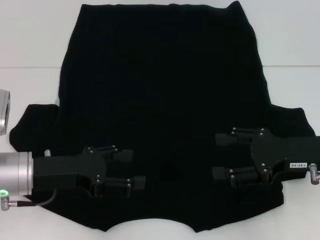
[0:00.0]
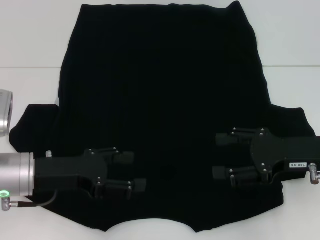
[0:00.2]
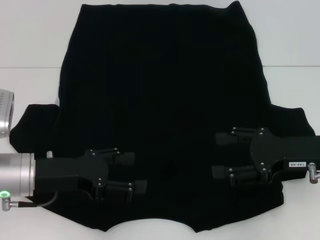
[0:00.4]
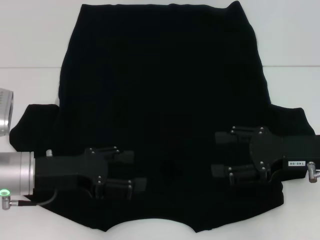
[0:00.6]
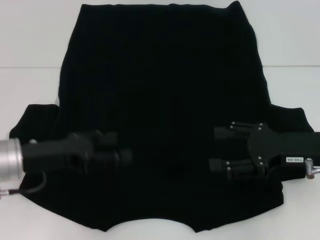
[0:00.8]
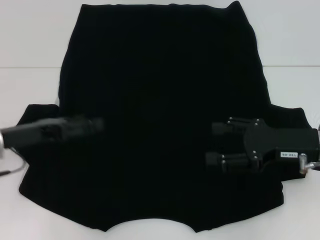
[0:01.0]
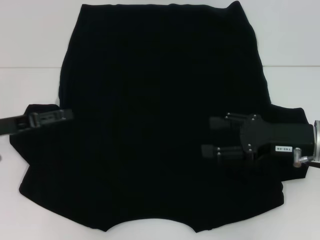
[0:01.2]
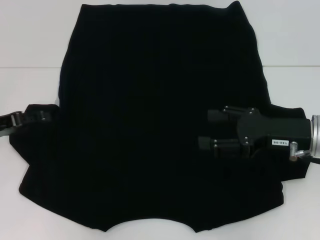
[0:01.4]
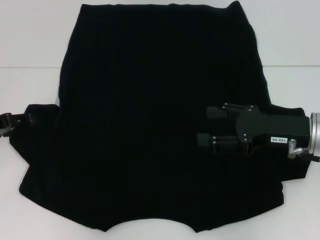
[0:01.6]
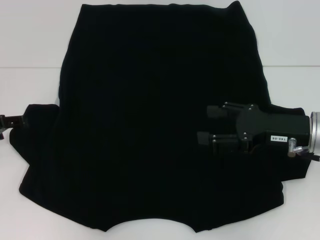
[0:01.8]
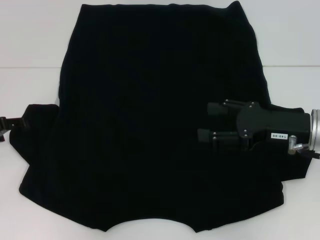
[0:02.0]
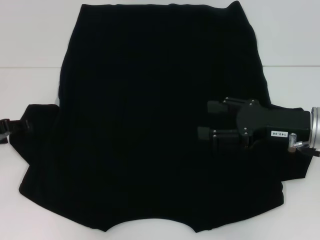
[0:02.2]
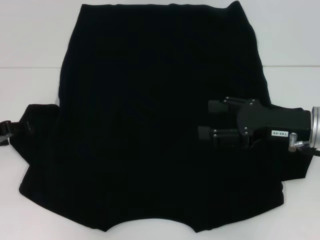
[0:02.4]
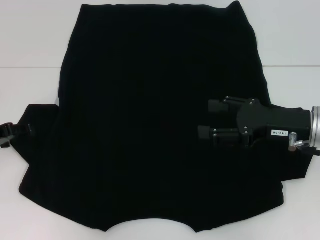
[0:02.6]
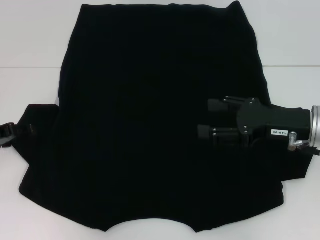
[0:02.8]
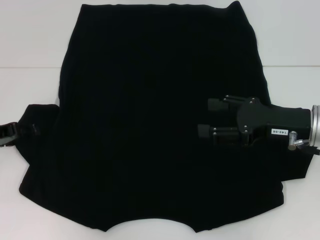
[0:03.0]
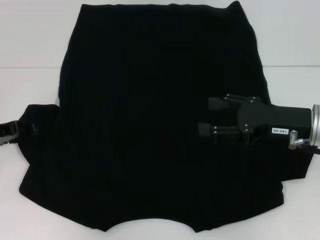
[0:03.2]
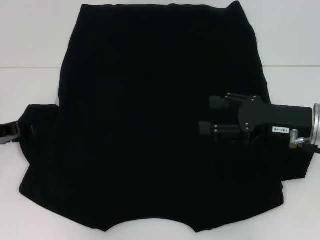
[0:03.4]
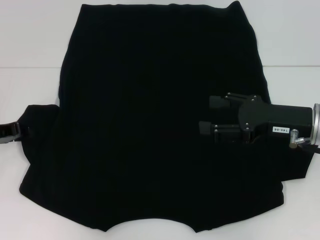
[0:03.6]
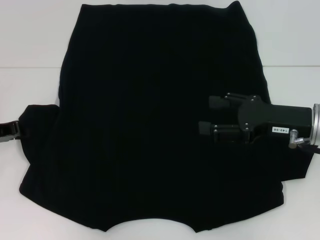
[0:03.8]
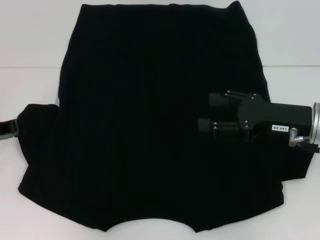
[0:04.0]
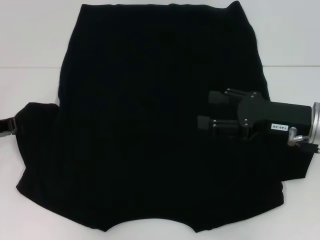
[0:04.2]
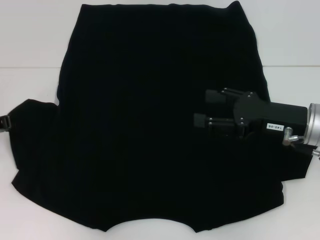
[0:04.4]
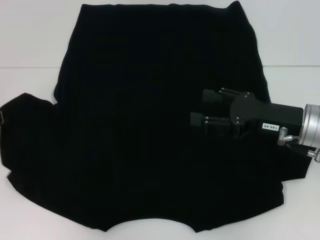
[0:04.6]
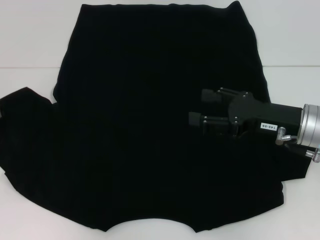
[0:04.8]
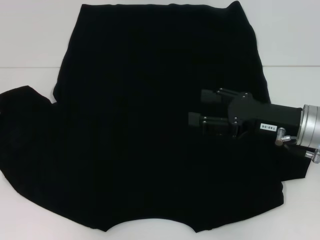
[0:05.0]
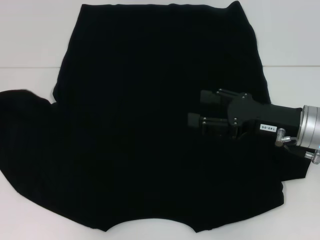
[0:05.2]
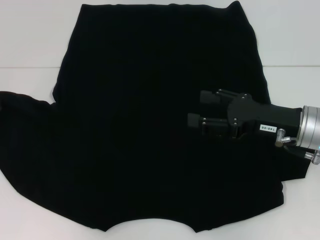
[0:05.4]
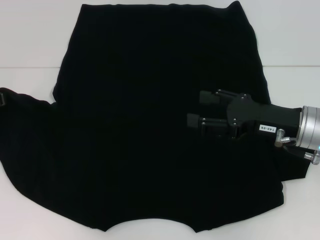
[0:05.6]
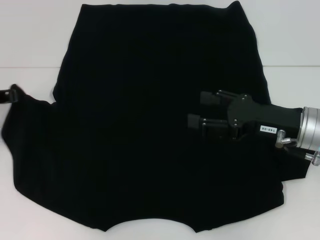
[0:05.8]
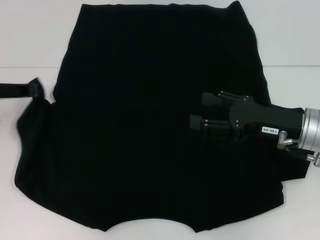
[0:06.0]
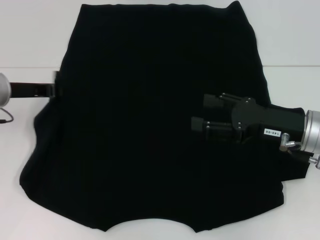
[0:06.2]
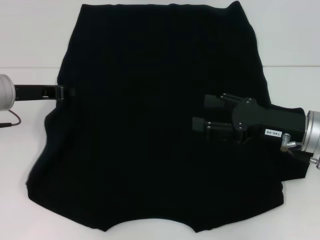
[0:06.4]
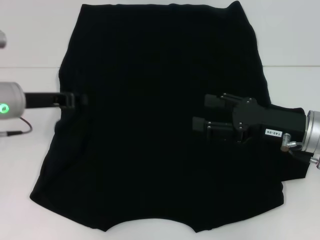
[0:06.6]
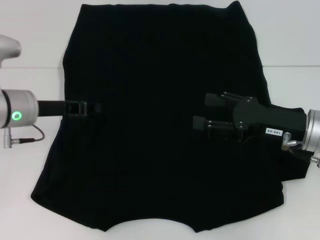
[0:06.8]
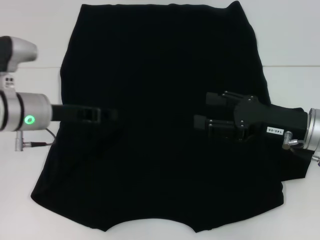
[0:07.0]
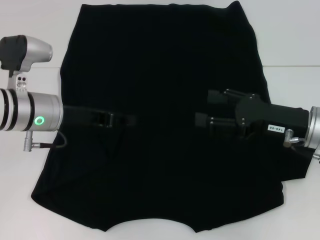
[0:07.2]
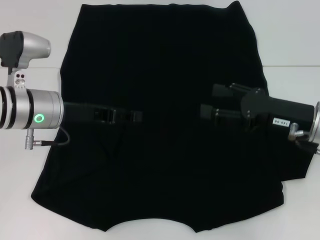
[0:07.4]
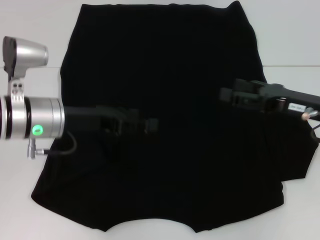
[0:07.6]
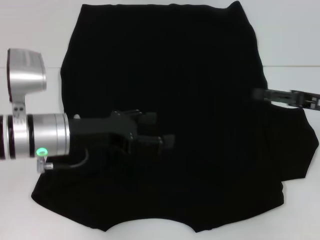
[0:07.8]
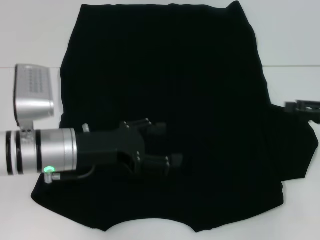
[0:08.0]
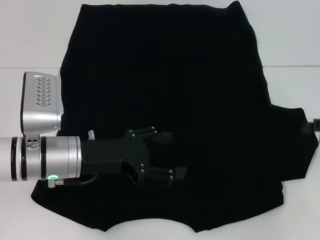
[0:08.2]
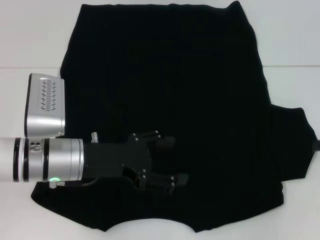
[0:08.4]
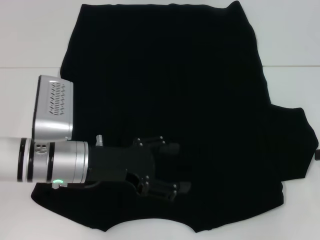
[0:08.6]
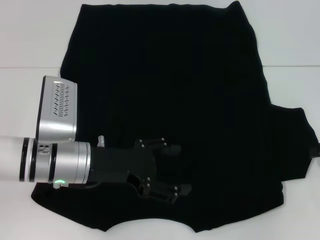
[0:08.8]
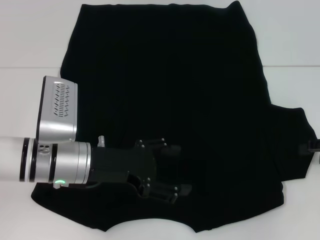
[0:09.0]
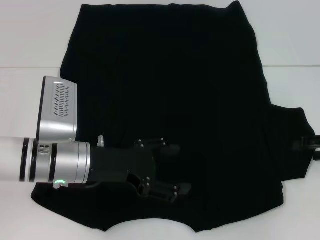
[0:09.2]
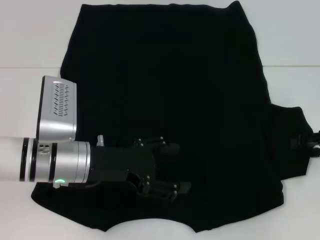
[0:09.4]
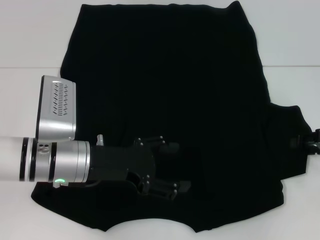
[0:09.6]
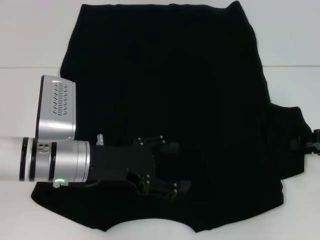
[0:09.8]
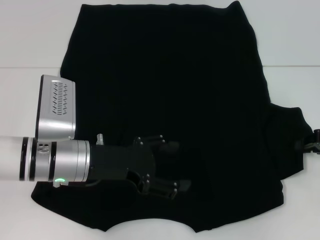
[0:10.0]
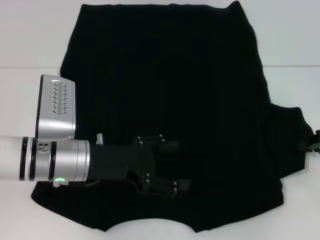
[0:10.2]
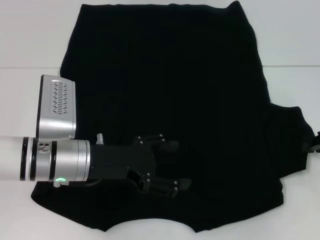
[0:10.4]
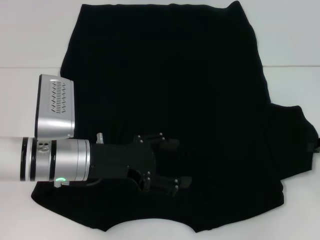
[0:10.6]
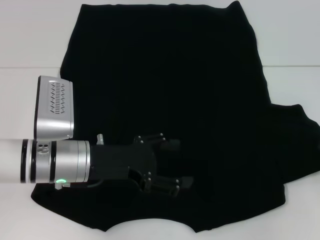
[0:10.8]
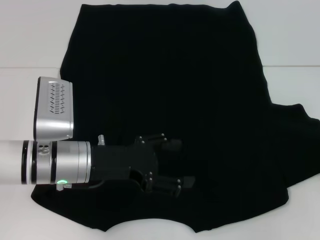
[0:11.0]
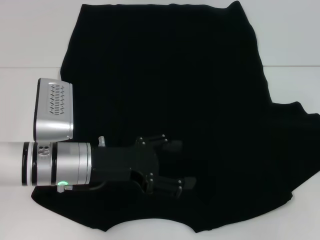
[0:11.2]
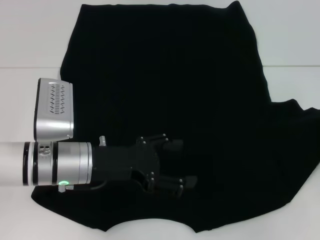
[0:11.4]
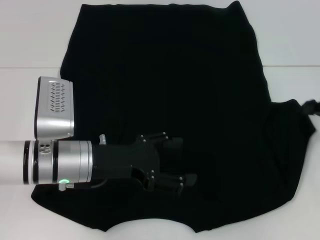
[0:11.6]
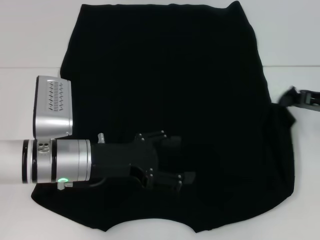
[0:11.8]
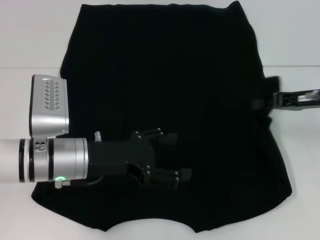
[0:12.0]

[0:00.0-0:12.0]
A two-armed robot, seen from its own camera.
Step, 0.0 to 7.4 s: Fold the bottom left sleeve with your left hand.
0.0 to 1.6 s: The left gripper shifts some 15 cm to the left and forward.
1.6 to 3.0 s: The grippers move only a little.
3.0 to 4.4 s: The left gripper closes.
4.4 to 6.0 s: The left gripper changes place by about 5 cm.
6.0 to 7.6 s: The left gripper is displaced to the right by approximately 10 cm, and opens its fingers.
7.6 to 9.0 s: The right gripper travels to the right by some 10 cm. Meanwhile the left gripper changes place by roughly 5 cm.
9.0 to 10.4 s: The right gripper closes.
10.4 to 12.0 s: The right gripper goes about 10 cm to the left.

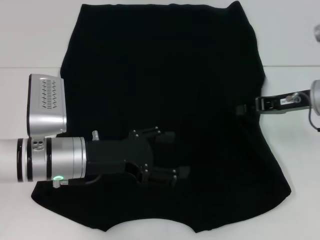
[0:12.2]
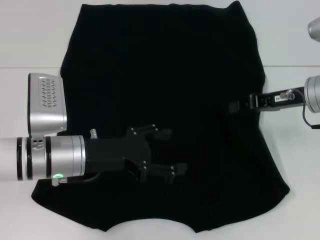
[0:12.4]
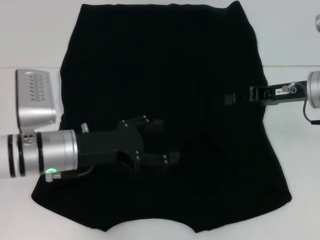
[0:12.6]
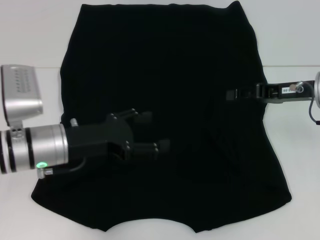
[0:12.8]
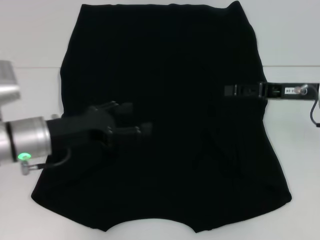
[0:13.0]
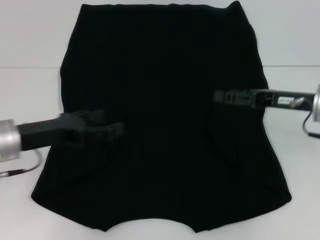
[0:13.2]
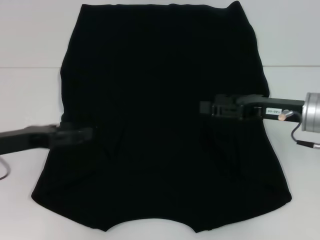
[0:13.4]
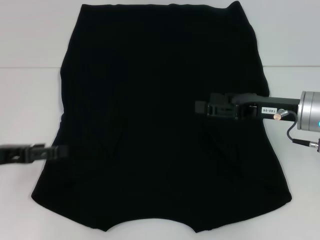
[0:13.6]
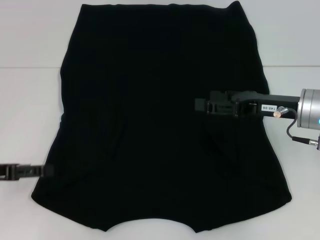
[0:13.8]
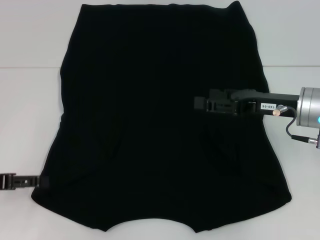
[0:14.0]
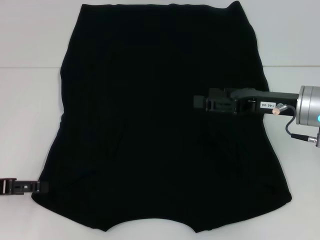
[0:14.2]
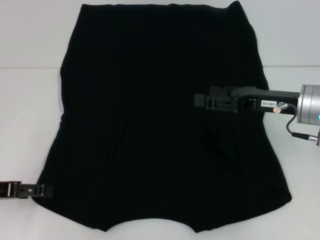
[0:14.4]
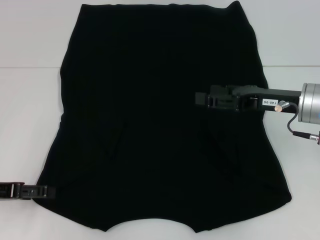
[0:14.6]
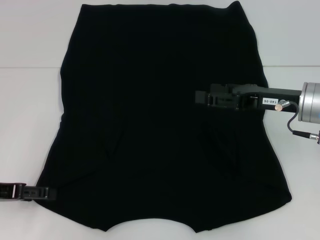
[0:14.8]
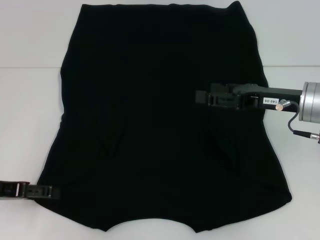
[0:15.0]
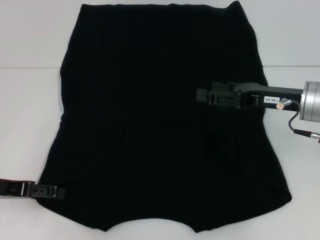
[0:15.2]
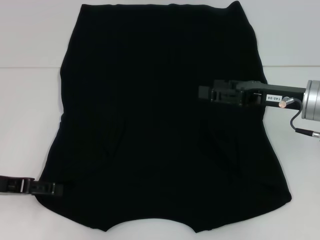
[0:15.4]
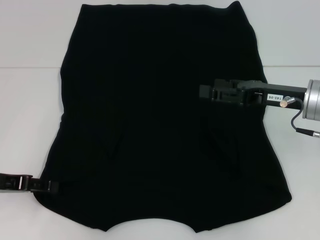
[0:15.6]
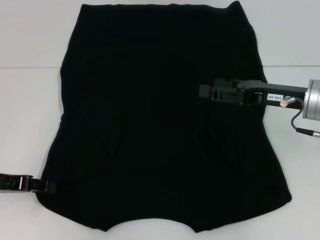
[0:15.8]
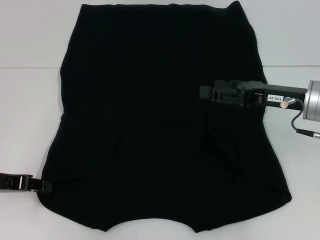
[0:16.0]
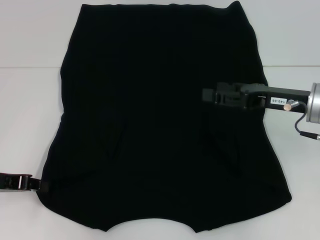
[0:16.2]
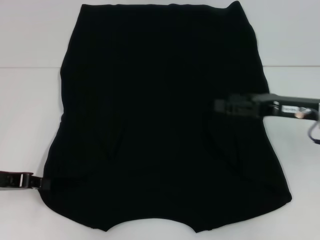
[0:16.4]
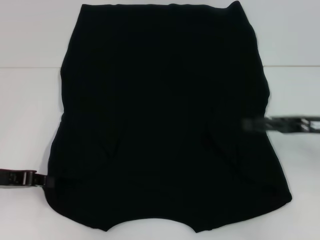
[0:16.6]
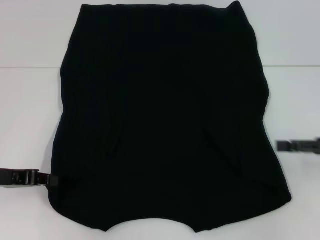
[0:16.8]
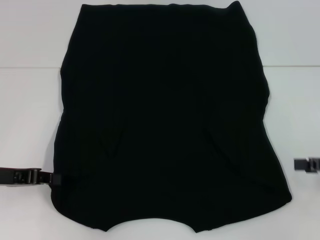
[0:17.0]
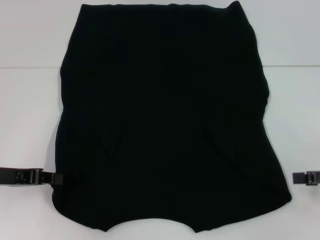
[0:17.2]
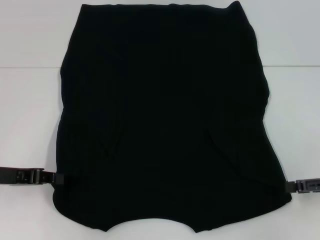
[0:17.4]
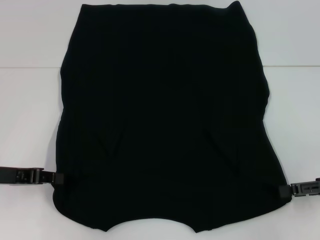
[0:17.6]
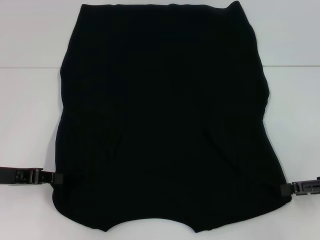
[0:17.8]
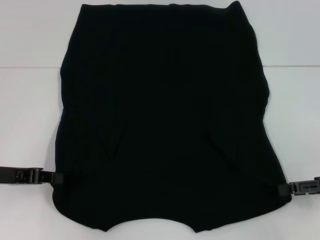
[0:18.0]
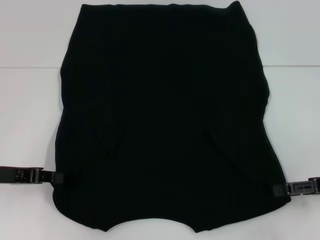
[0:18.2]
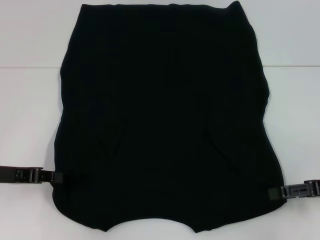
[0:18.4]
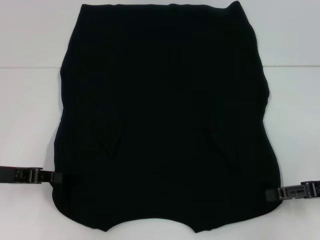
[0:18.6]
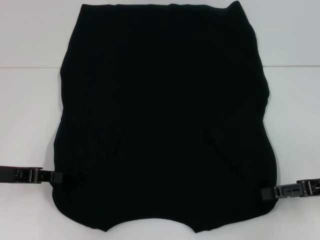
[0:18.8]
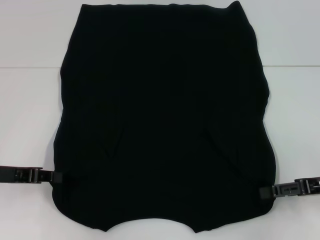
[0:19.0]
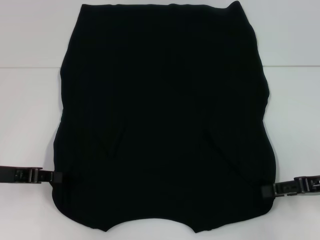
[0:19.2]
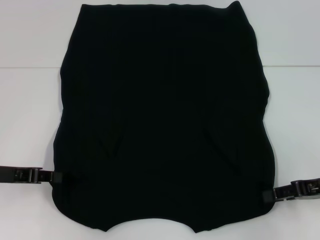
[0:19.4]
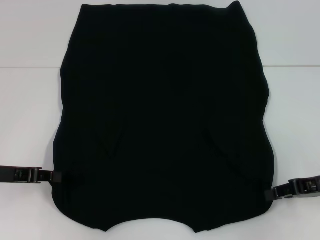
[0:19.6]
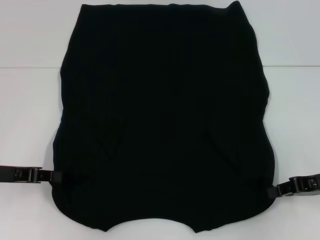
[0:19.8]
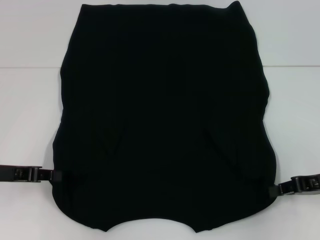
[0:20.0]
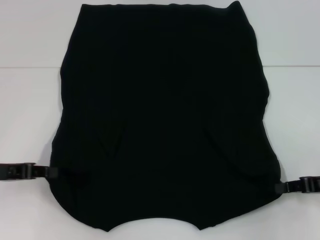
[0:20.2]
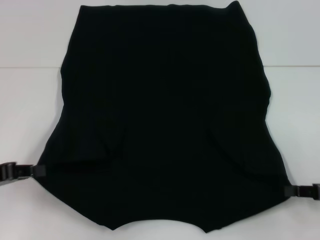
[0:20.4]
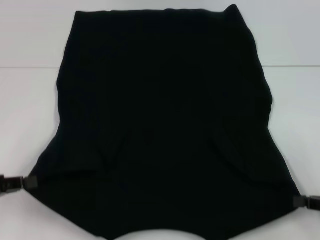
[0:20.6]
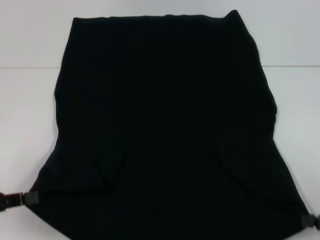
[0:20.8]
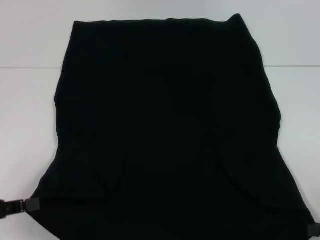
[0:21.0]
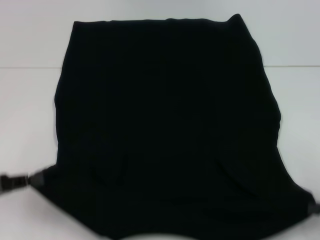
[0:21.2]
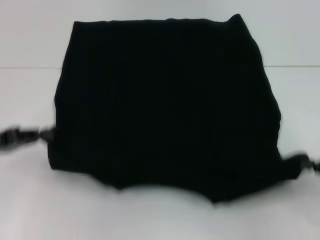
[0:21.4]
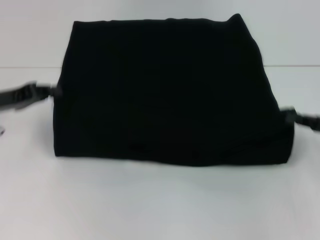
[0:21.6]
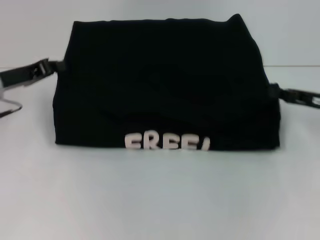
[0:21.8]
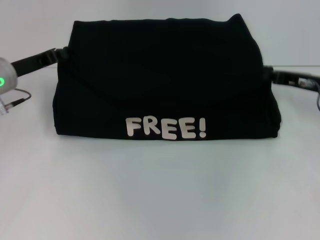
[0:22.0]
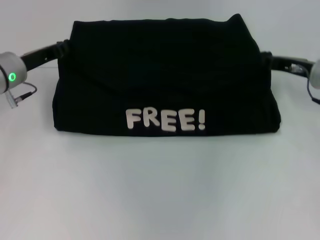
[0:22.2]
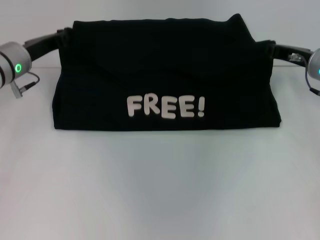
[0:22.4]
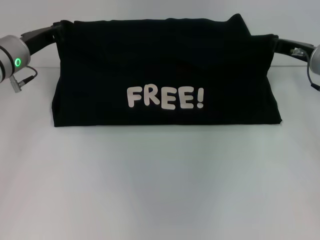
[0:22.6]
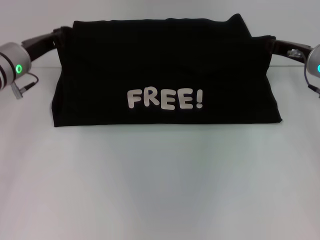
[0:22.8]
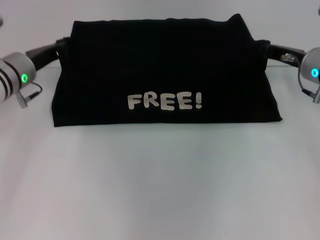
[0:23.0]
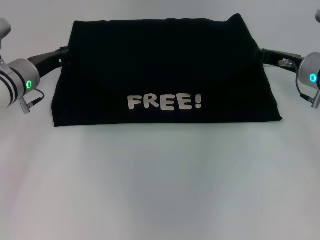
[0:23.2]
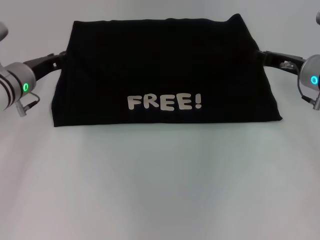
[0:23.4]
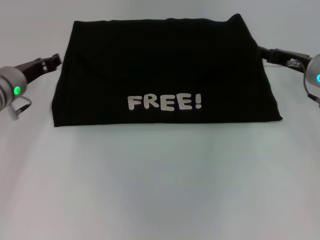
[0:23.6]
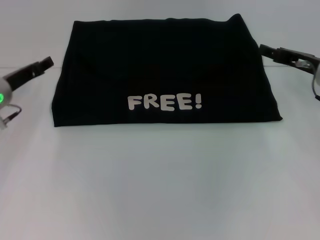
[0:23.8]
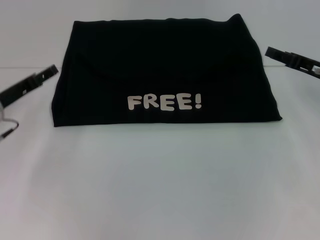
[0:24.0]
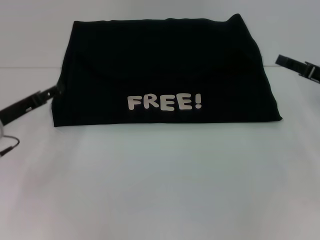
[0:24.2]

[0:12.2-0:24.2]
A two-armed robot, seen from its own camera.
Step, 13.0 to 16.8 s: Grab the bottom left corner with your left hand.
Step, 17.0 to 20.4 s: Grab the bottom right corner with your right hand.
Step, 20.6 to 23.4 s: Fold the clothes with your left hand.
Step, 20.6 to 23.4 s: Fold the clothes with your right hand.
12.2 to 13.8 s: The left gripper is displaced to the left by roughly 15 cm; the right gripper opens.
13.8 to 15.2 s: The grippers make only small movements.
15.2 to 16.6 s: The right gripper is displaced to the right by approximately 5 cm. Meanwhile the left gripper closes.
16.6 to 18.2 s: The right gripper ends up about 5 cm from where it was.
18.2 to 19.8 s: The right gripper closes.
19.8 to 21.2 s: The left gripper travels backward by some 5 cm. Meanwhile the right gripper heads backward and to the right, covering roughly 10 cm.
21.2 to 22.6 s: The left gripper moves forward and to the right, some 25 cm. The right gripper travels forward and to the left by roughly 25 cm.
22.6 to 24.2 s: The right gripper moves backward and to the right, about 10 cm, and opens. Meanwhile the left gripper goes some 10 cm backward and downward, and opens its fingers.
